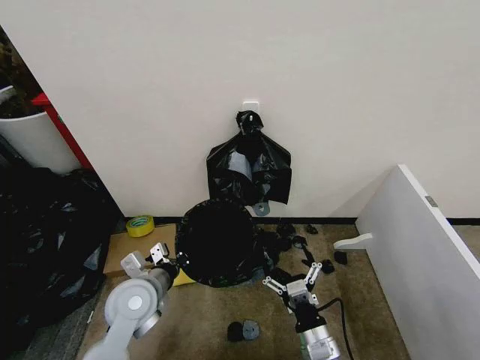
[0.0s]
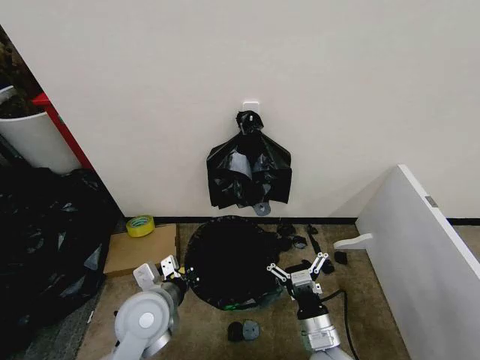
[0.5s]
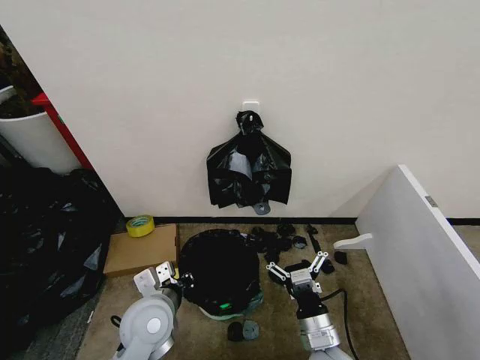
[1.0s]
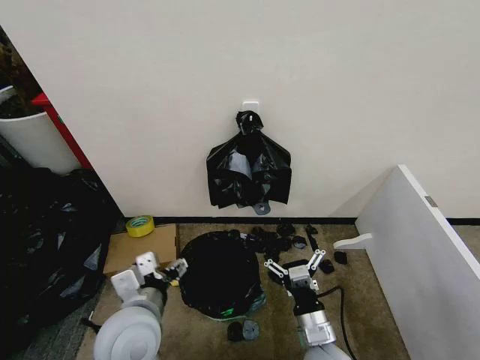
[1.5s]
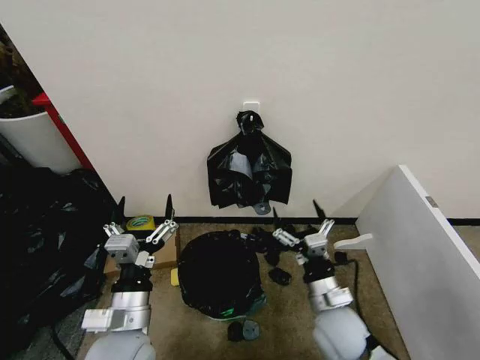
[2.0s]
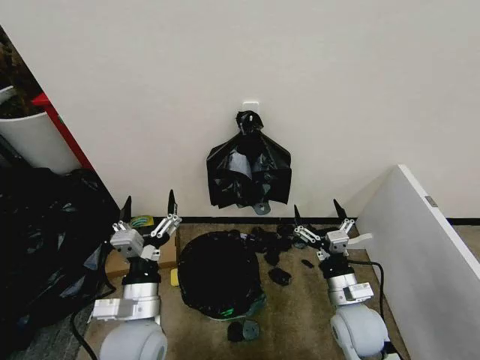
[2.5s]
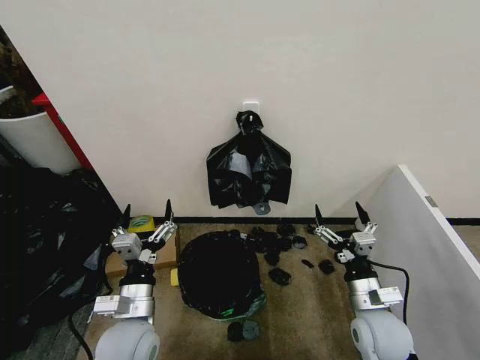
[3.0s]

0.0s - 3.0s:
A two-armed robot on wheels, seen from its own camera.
Task of the whole recording: Place the garbage bag over the trash bin.
0.0s - 1.5s: The left gripper moves backward, about 5 cm, and opens up.
1.5s - 3.0s: The right gripper heads to the right and forward, covering about 10 cm. The left gripper is displaced downward by roughly 5 cm.
